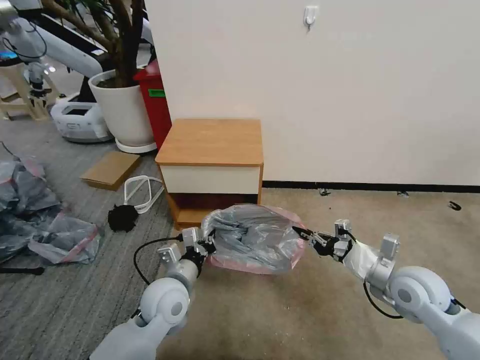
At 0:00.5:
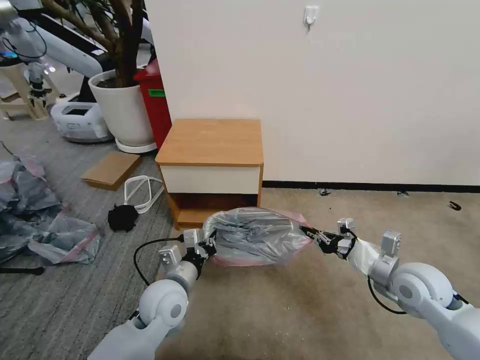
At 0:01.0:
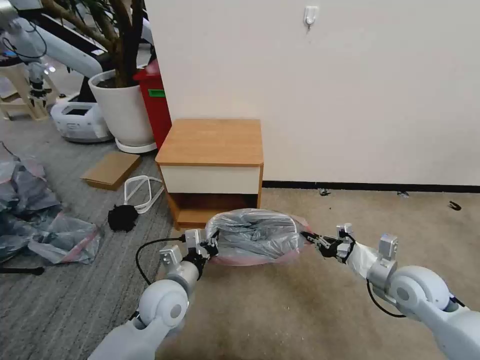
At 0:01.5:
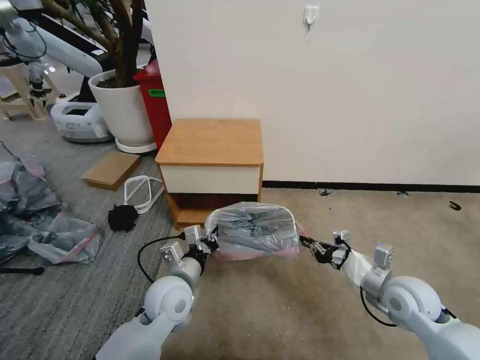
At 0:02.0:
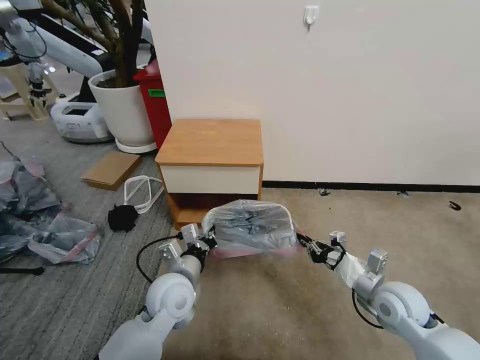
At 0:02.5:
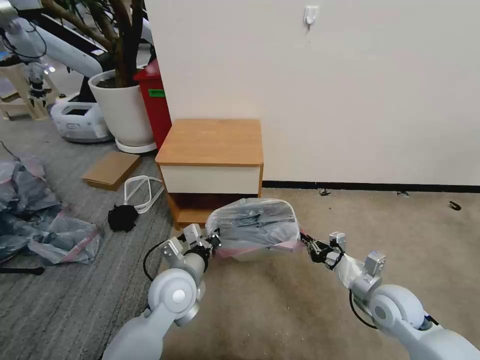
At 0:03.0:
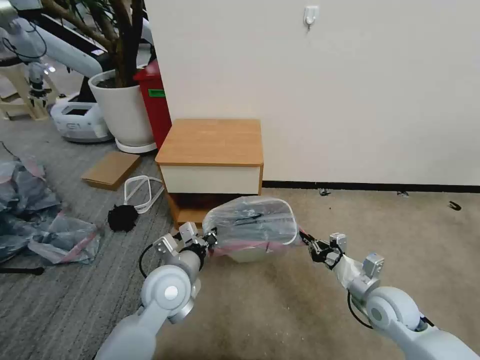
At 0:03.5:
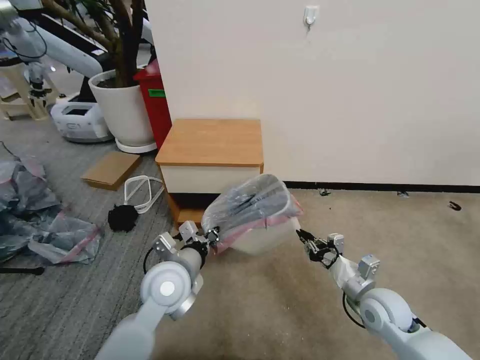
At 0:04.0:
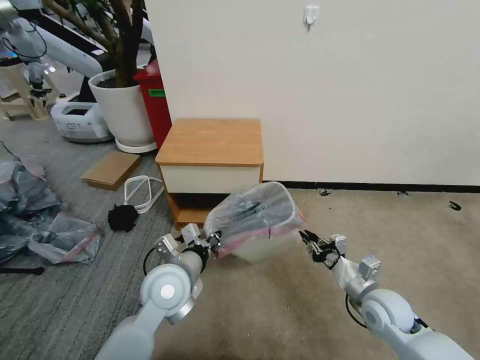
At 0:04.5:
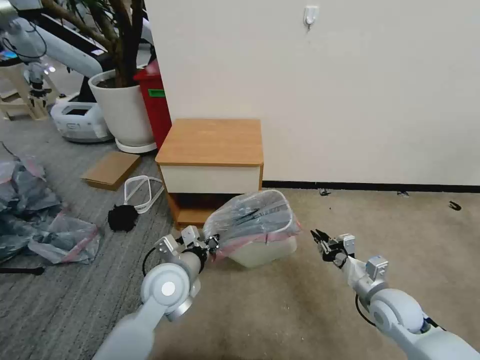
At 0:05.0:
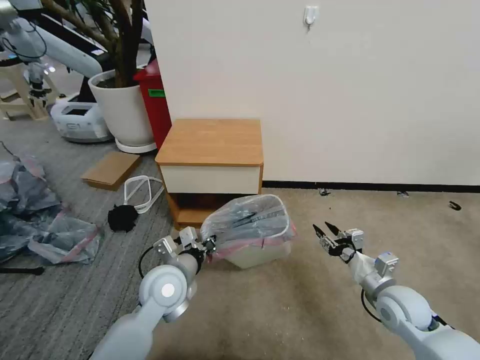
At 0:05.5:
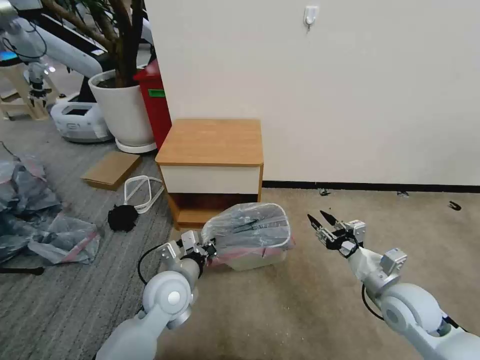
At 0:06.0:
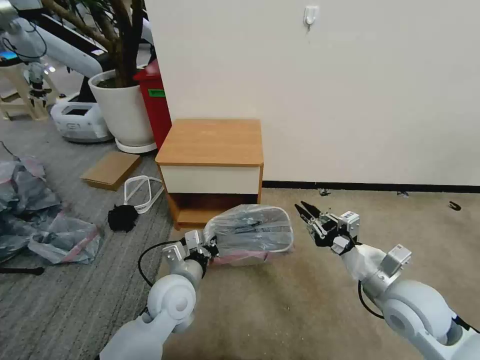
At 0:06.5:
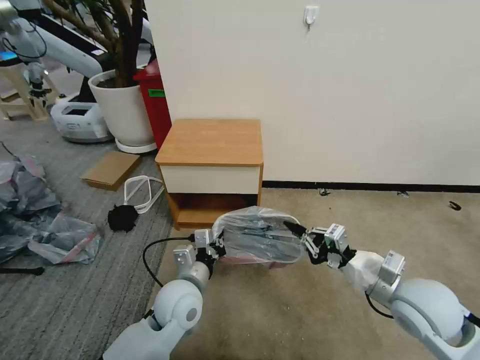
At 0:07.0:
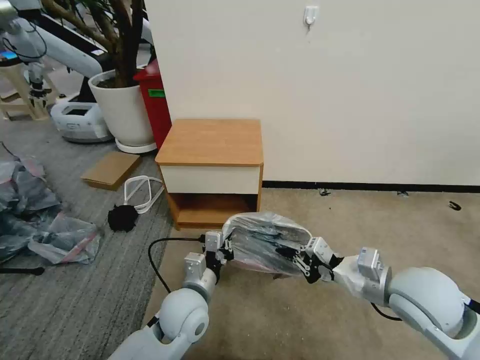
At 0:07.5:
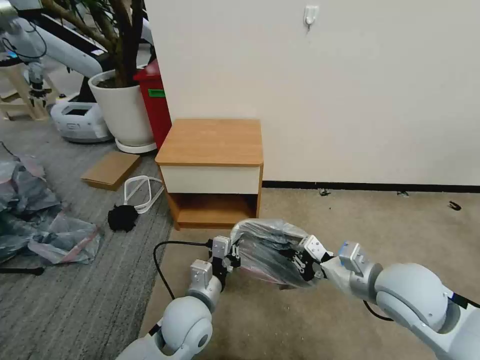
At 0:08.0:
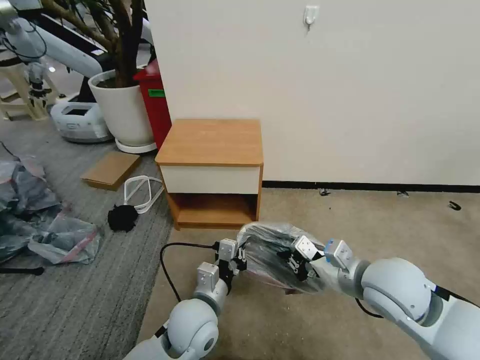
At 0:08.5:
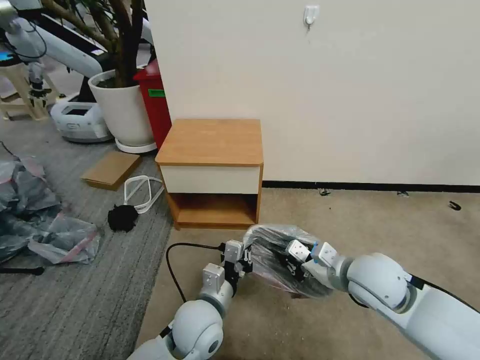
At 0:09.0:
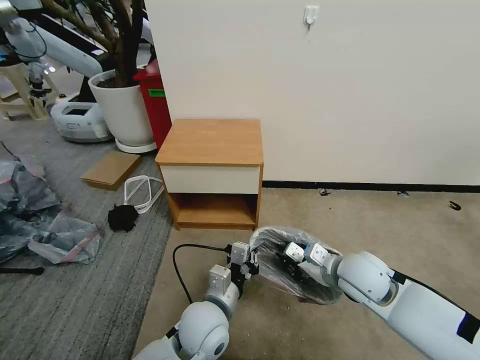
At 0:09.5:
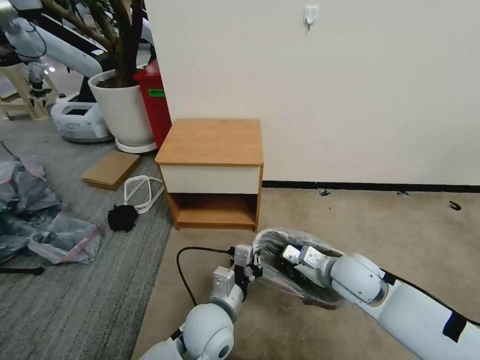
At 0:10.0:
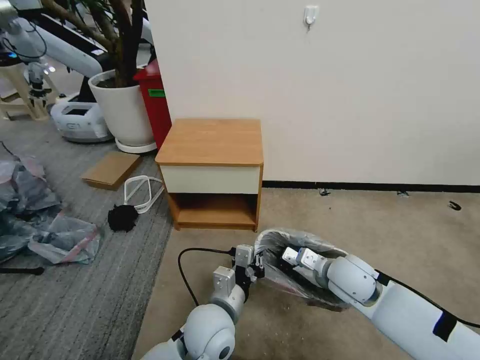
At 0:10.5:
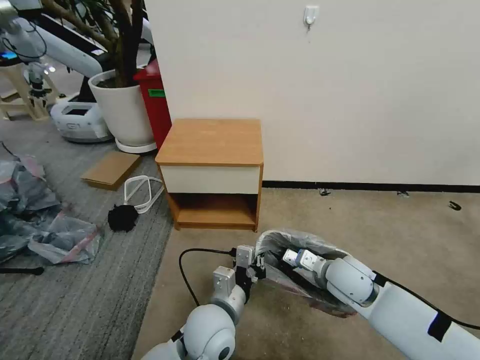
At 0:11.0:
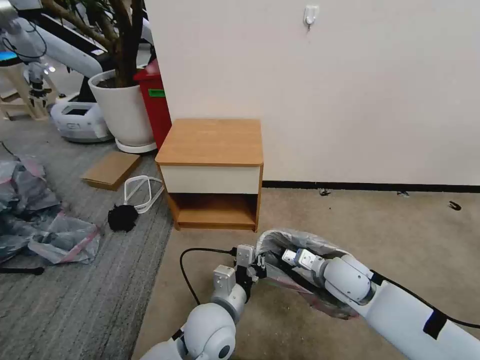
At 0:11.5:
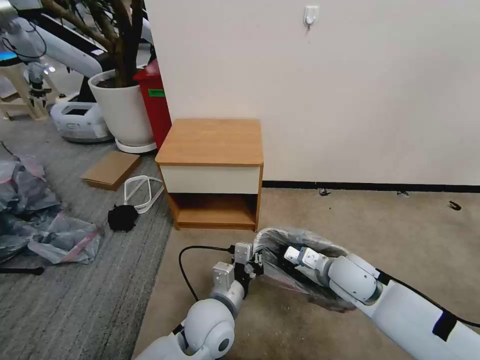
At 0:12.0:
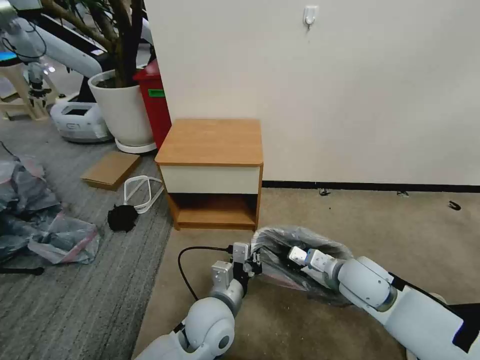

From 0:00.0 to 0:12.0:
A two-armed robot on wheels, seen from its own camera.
Task of the whole recording: Pick up the garbage bag from the table and place it over the trash can.
From 0:00.0 to 0:02.0: The right gripper moves downward, roughly 5 cm.
From 0:04.0 to 0:06.0: The right gripper travels upward by about 10 cm.
From 0:06.0 to 0:08.0: The right gripper ends up some 5 cm from where it was; the left gripper ends up roughly 5 cm from where it was.
From 0:08.0 to 0:10.0: The right gripper goes approximately 10 cm downward and forward.
From 0:10.0 to 0:12.0: The grippers make only small movements.

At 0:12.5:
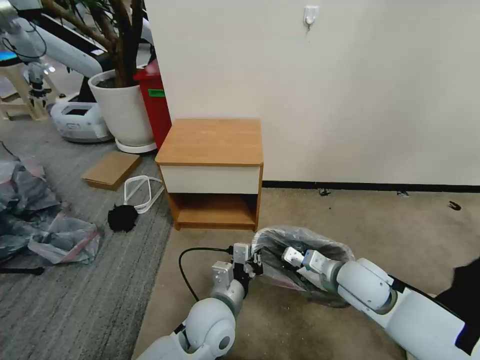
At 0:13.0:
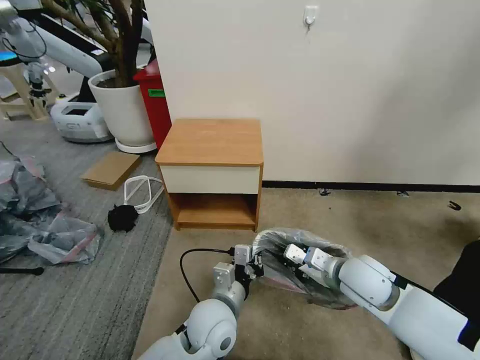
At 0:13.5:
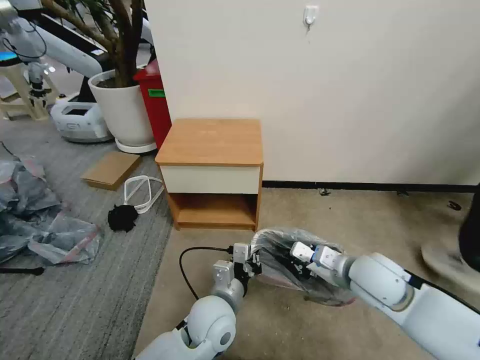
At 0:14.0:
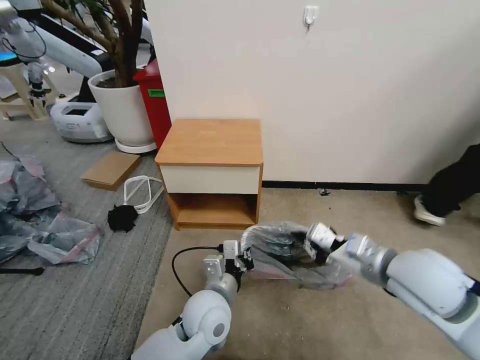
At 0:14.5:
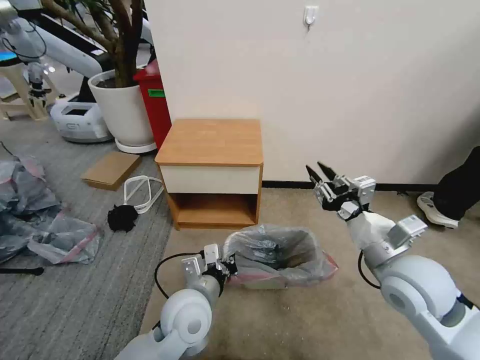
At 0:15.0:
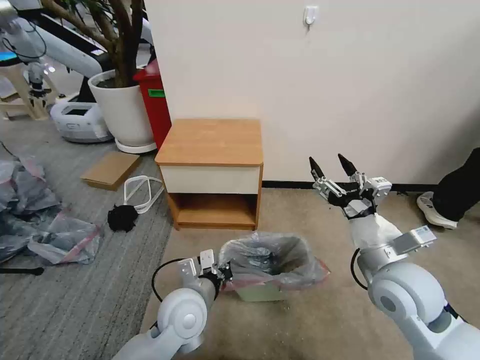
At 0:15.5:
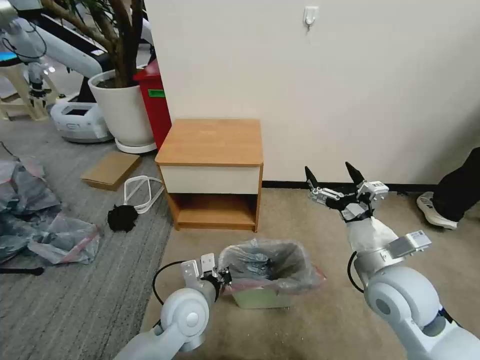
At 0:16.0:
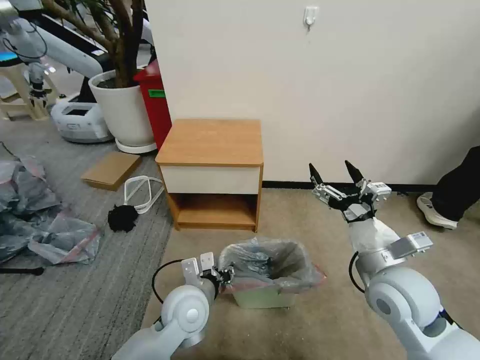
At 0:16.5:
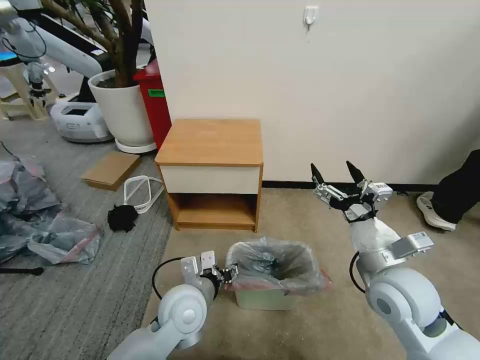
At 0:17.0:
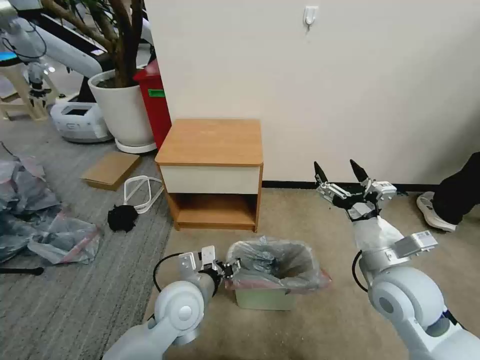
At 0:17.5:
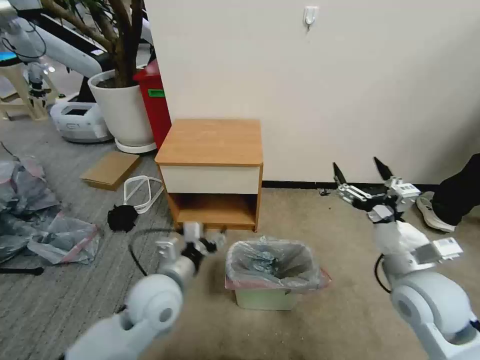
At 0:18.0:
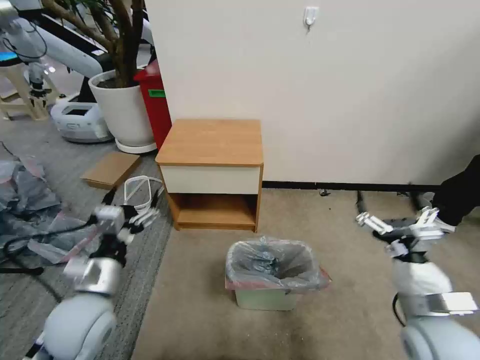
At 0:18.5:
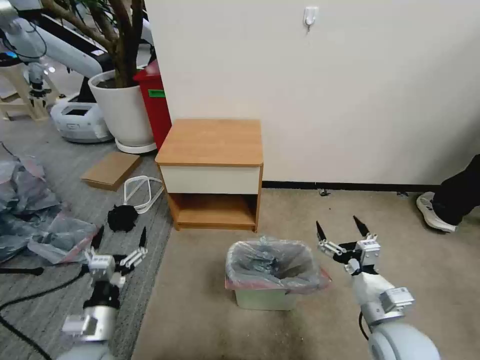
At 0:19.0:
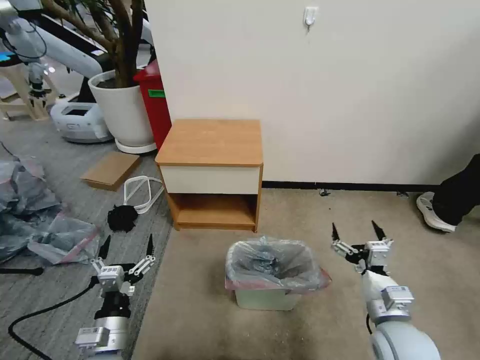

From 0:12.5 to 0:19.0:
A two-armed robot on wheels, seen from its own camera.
Task of the whole recording: Pick up the garbage bag from the table and place it over the trash can.
From 0:12.5 to 0:14.5: The left gripper ends up about 5 cm from where it was, while the right gripper moves upward, roughly 10 cm.
From 0:14.5 to 0:17.0: The left gripper opens up. Meanwhile the right gripper opens.
From 0:17.0 to 0:19.0: The left gripper heads to the left, backward and downward, covering roughly 20 cm, and opens. Meanwhile the right gripper is displaced downward and backward by approximately 15 cm.

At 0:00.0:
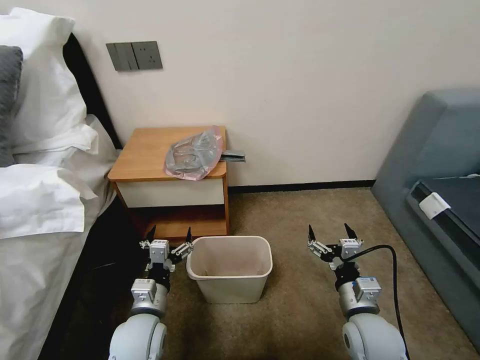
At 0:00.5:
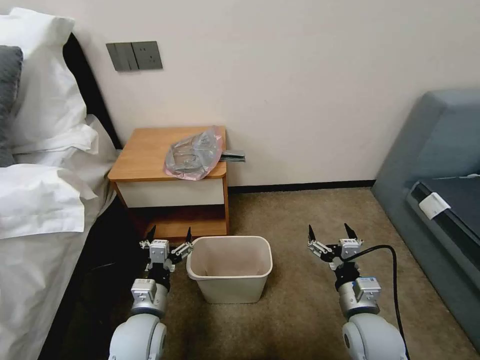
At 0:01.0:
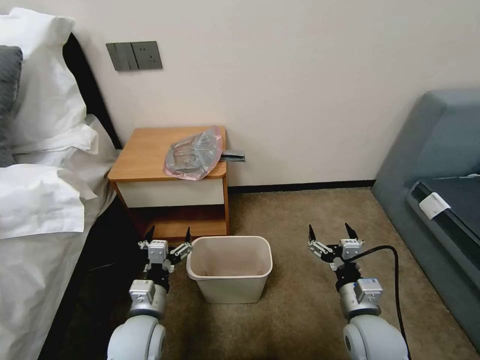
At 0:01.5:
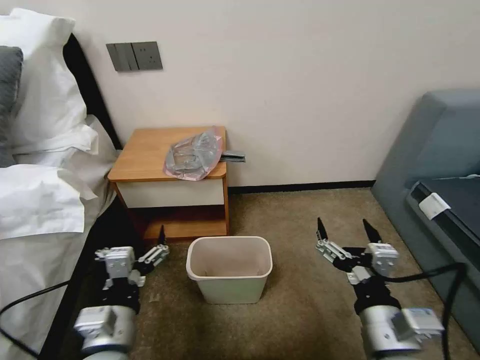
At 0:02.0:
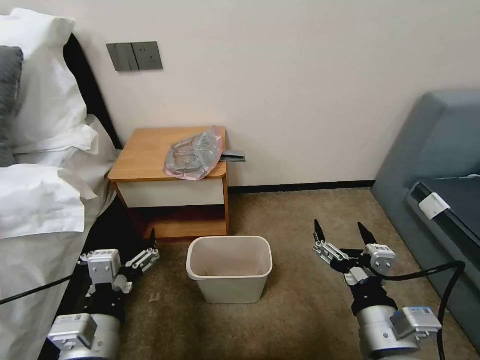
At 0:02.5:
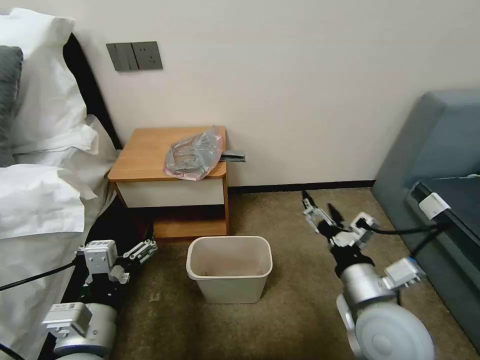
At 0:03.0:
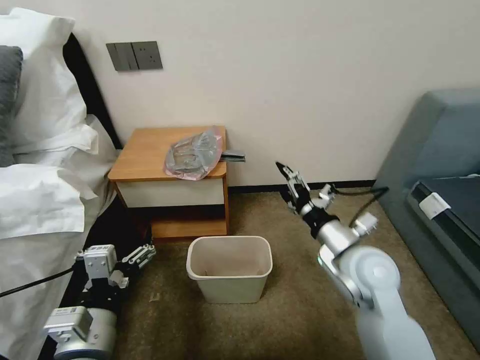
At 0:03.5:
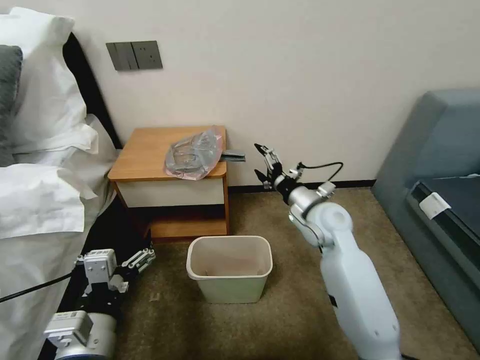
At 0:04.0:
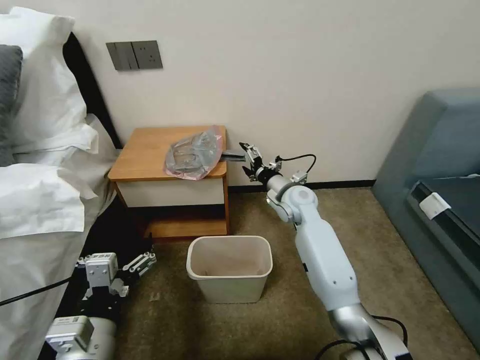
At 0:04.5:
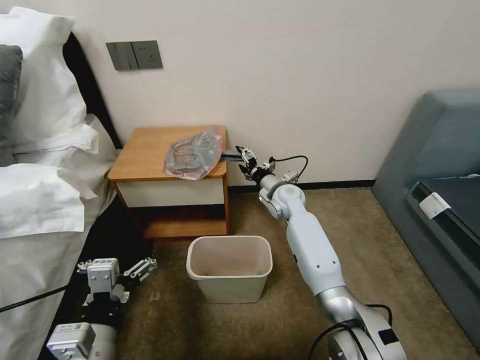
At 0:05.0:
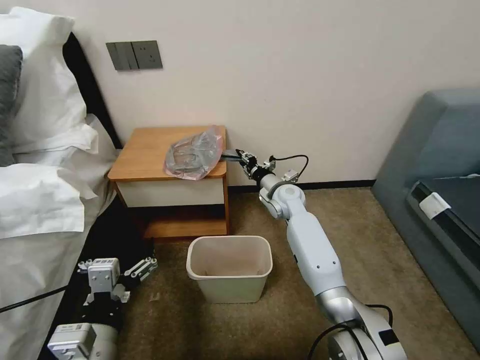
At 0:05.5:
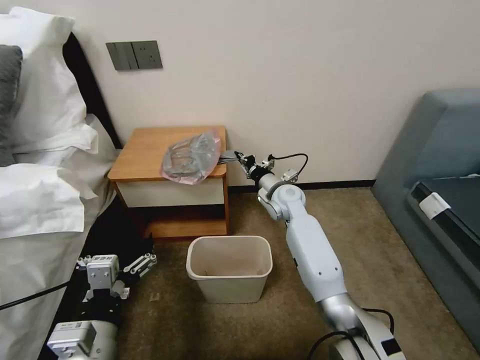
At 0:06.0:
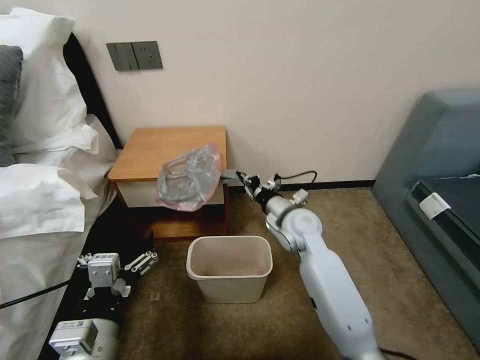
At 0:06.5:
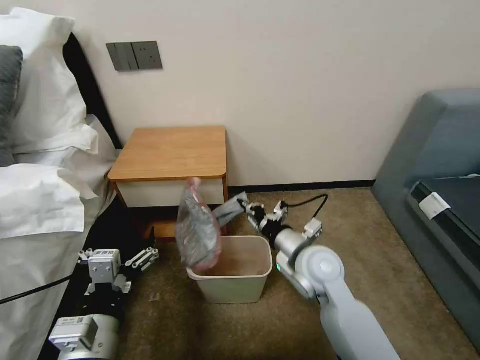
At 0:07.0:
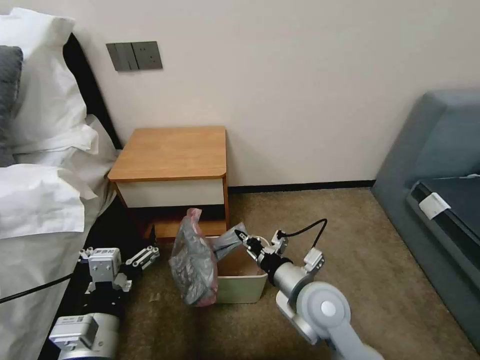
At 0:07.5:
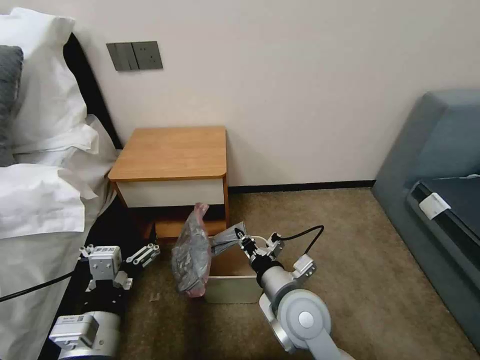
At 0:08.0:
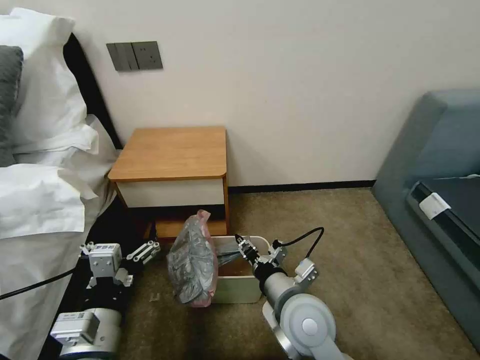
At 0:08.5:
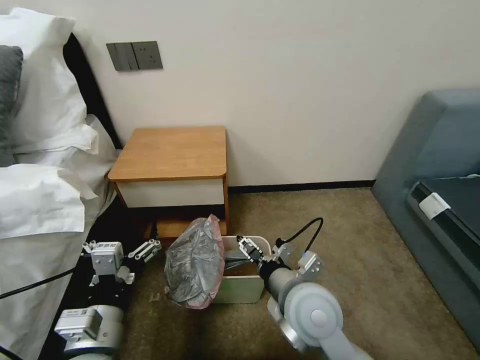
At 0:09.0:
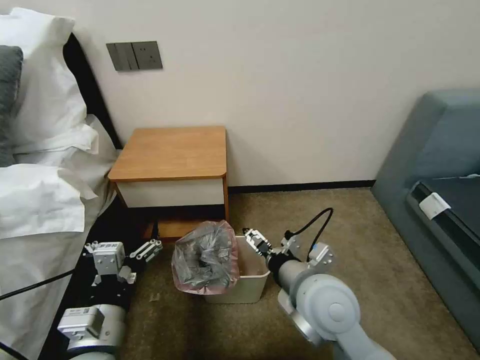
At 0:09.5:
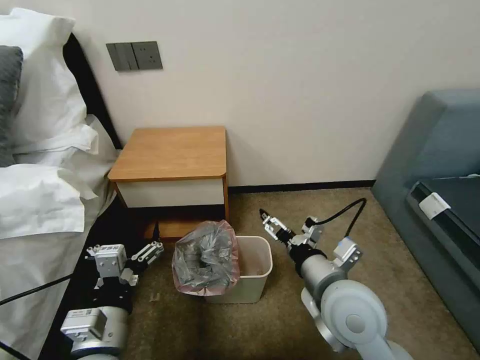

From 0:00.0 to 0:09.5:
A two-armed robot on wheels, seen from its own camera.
Task of the whole recording: Pick up the garbage bag from the table and place it over the trash can.
From 0:02.0 to 0:04.0: The right gripper is displaced forward by about 40 cm.
From 0:04.0 to 0:05.5: The right gripper closes up.
From 0:05.5 to 0:07.5: The right gripper is displaced backward by about 30 cm.
From 0:07.5 to 0:09.5: The right gripper goes some 10 cm to the right and upward, and opens its fingers.
